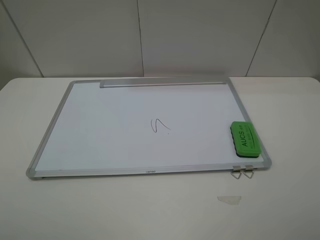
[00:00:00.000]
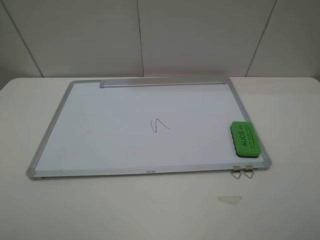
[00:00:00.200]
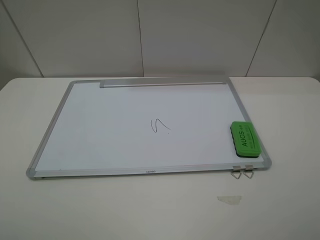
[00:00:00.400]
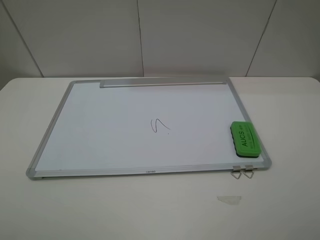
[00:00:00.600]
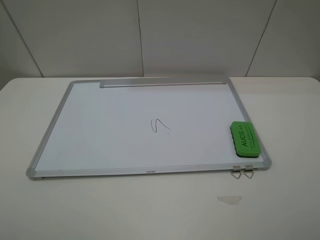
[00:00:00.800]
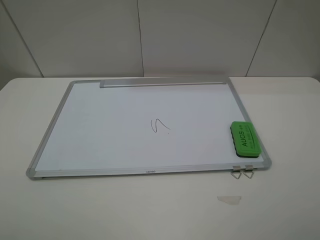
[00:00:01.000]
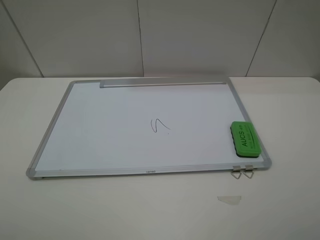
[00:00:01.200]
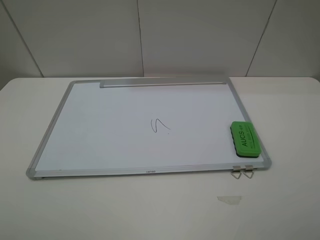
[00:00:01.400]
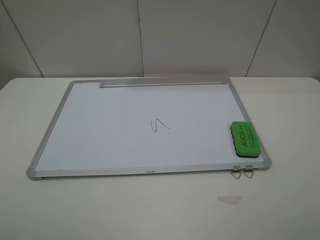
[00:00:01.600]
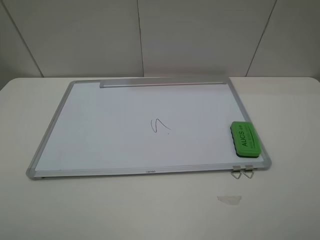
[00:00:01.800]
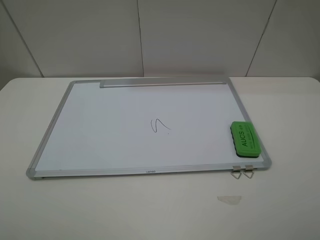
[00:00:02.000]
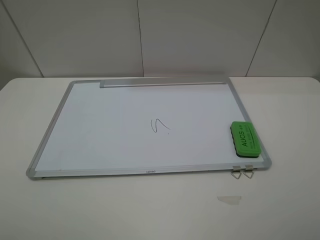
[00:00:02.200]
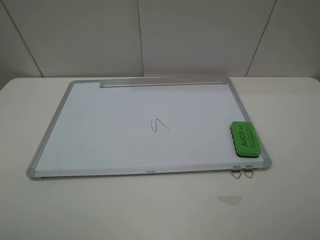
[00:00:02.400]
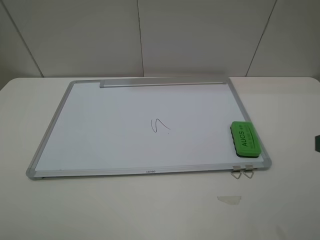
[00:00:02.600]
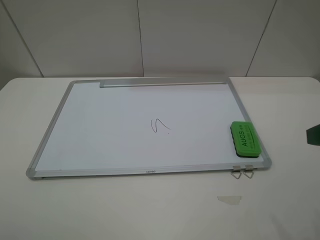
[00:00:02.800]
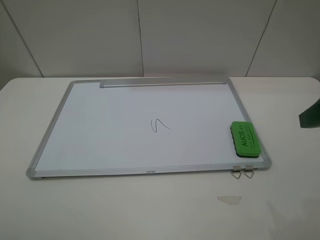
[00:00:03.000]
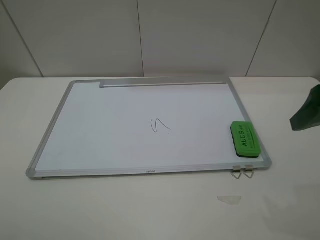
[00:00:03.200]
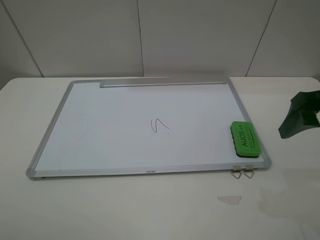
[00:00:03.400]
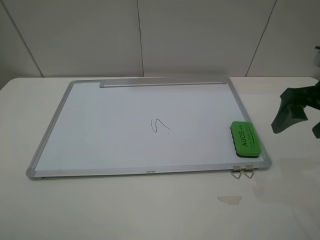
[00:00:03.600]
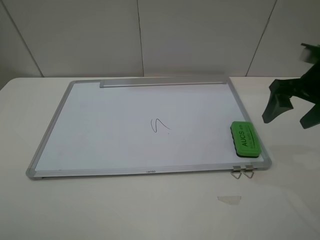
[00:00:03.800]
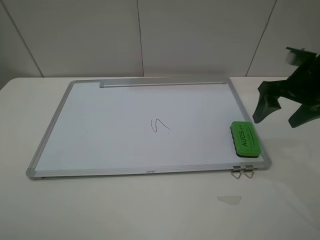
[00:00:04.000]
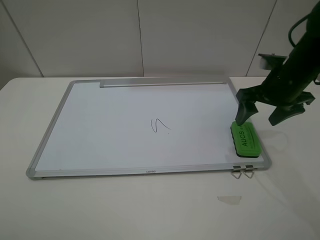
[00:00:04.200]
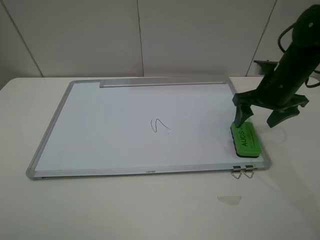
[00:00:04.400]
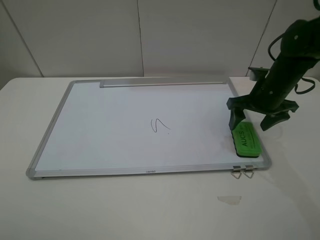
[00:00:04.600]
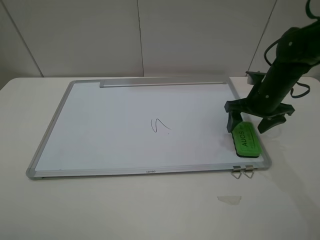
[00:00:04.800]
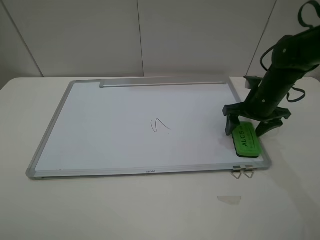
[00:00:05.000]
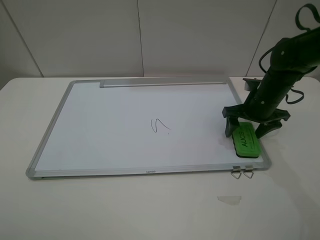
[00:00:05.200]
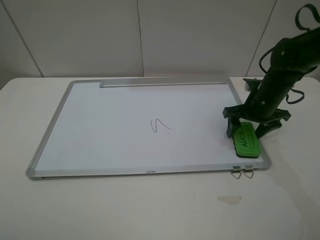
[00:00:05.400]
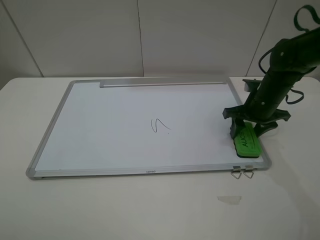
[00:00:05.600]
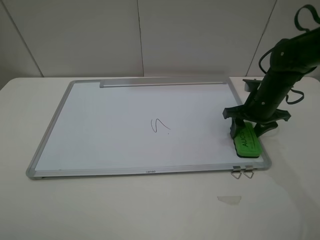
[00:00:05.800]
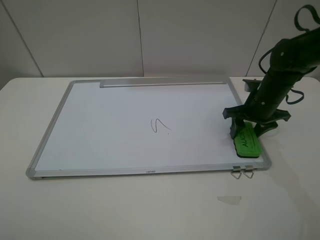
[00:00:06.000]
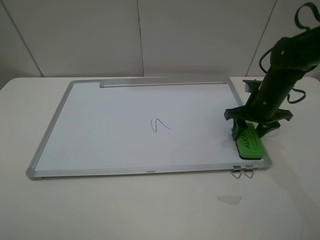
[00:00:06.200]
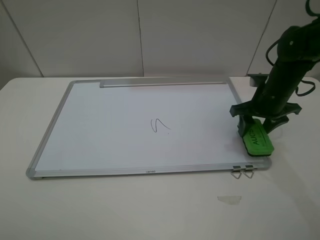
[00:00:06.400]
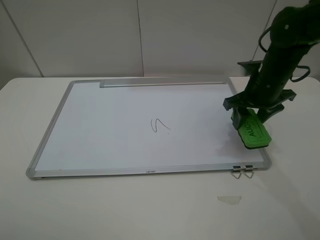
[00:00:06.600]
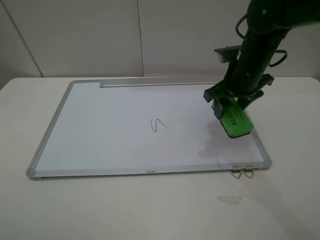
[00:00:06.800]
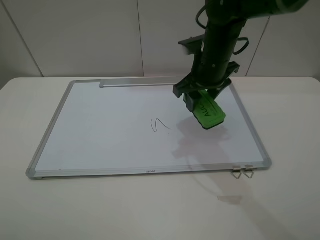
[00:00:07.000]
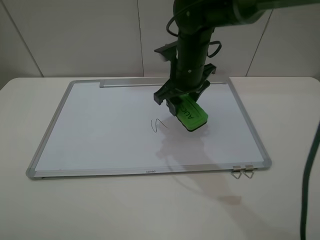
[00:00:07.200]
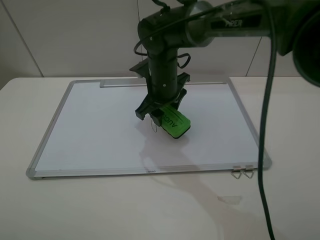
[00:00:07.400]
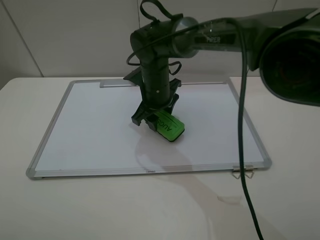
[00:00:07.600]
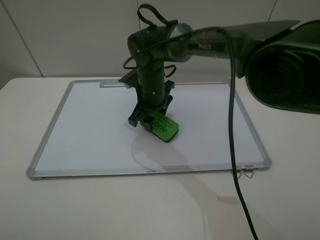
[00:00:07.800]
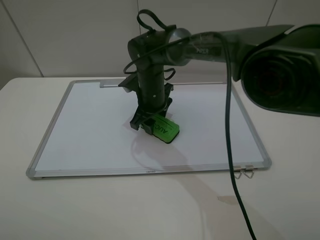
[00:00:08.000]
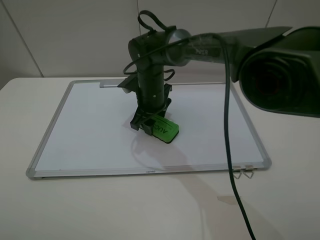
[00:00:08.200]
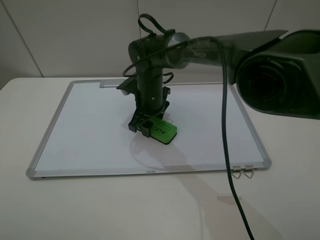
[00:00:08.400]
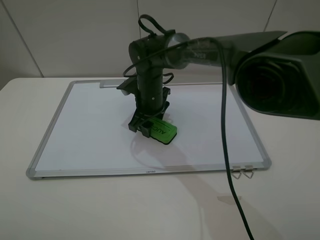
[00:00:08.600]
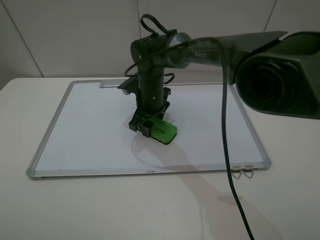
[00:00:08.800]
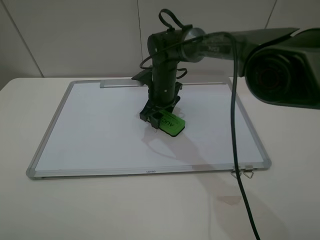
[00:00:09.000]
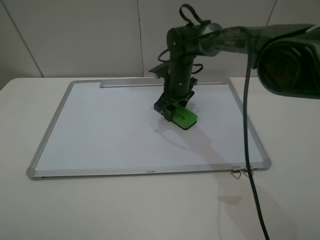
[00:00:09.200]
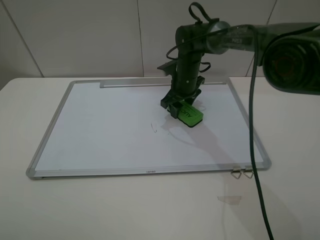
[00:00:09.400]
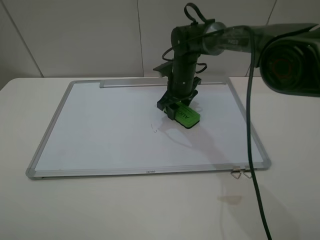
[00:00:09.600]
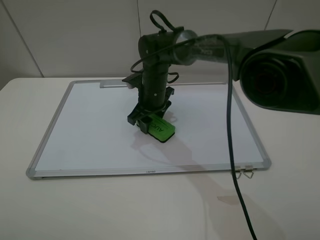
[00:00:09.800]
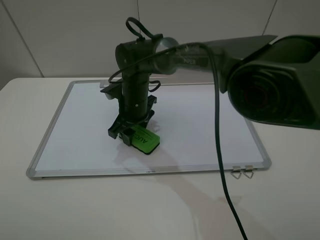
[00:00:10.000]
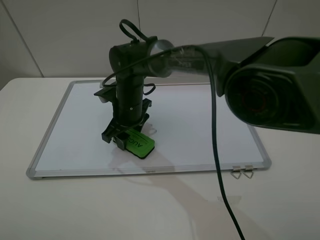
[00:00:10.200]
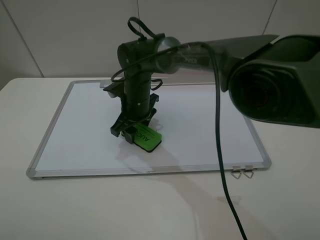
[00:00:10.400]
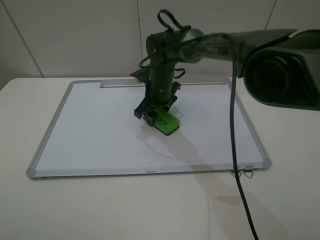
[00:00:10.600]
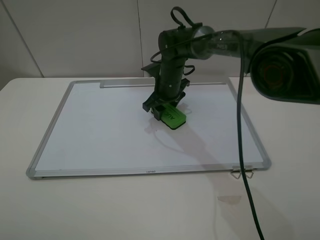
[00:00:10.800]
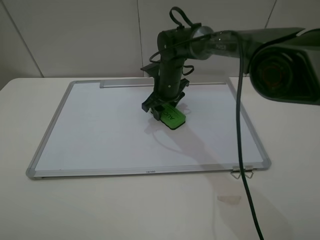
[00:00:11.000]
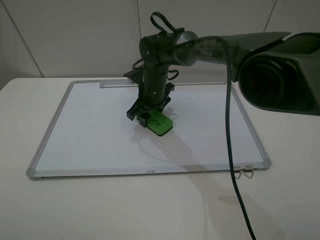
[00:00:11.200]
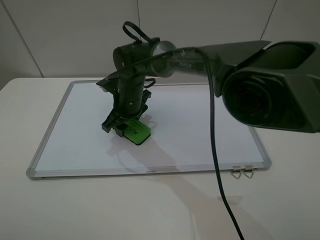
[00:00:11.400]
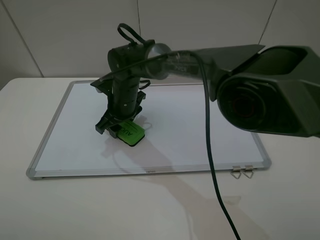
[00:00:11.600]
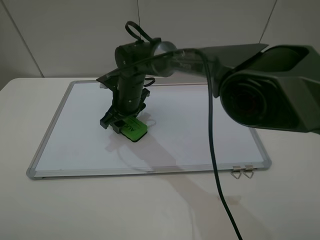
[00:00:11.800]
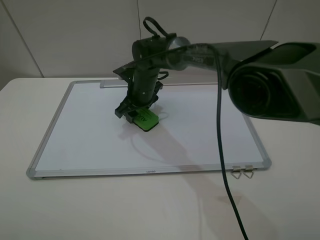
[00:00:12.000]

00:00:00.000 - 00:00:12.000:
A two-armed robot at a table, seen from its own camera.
Step, 00:00:00.000 - 00:00:05.800: Grasp the eraser with the right gripper.
00:00:00.000 - 00:00:01.600: Neither gripper changes place.
00:00:03.000 - 00:00:04.400: The right gripper shifts roughly 20 cm forward and downward.
00:00:04.400 - 00:00:06.000: The right gripper heads downward, covering about 5 cm, and closes its fingers.
00:00:06.000 - 00:00:07.600: The right gripper travels to the left by roughly 25 cm.
00:00:07.600 - 00:00:09.000: The right gripper shifts by about 5 cm.
00:00:09.000 - 00:00:10.400: The right gripper heads to the left, covering approximately 5 cm.
00:00:10.400 - 00:00:12.000: The right gripper goes left and right, roughly 10 cm each way, reversing 2 times.

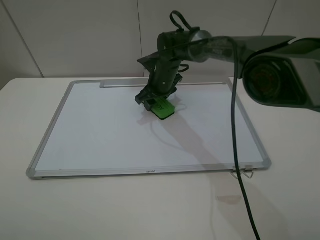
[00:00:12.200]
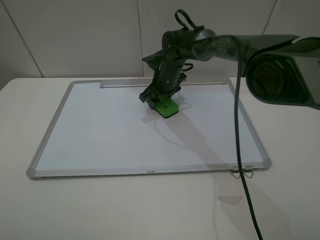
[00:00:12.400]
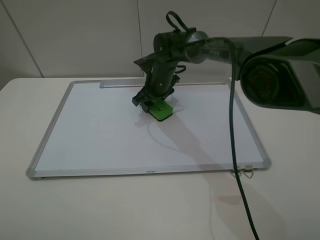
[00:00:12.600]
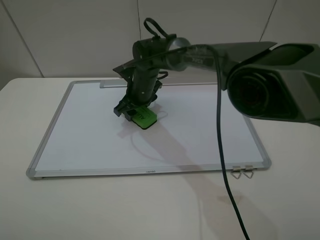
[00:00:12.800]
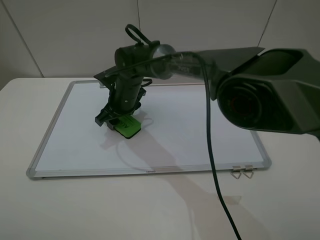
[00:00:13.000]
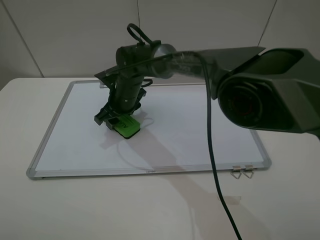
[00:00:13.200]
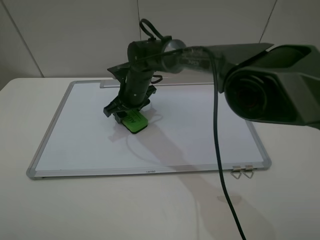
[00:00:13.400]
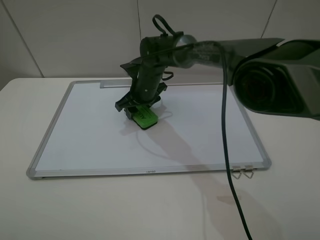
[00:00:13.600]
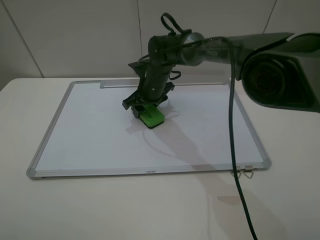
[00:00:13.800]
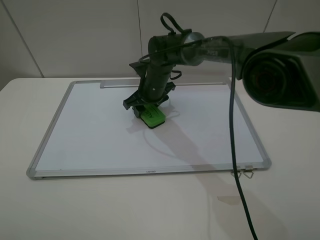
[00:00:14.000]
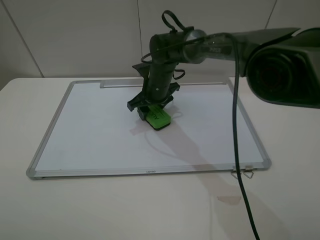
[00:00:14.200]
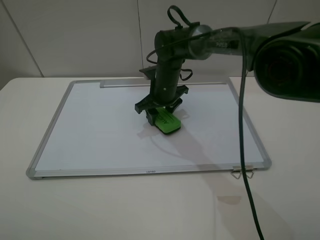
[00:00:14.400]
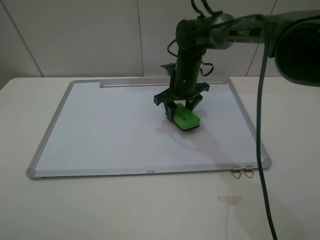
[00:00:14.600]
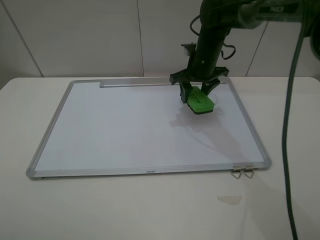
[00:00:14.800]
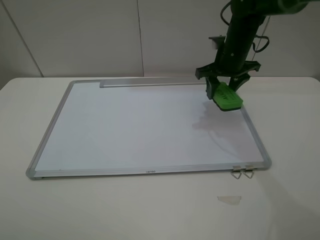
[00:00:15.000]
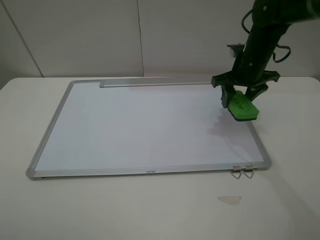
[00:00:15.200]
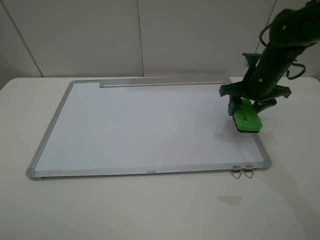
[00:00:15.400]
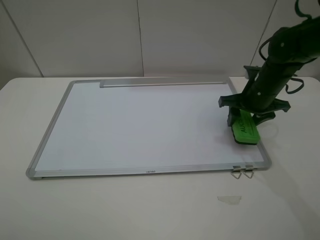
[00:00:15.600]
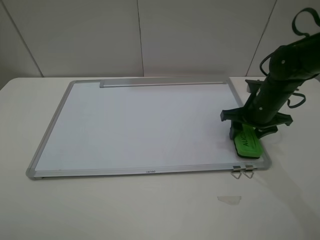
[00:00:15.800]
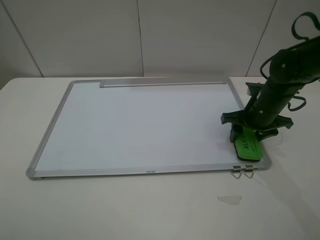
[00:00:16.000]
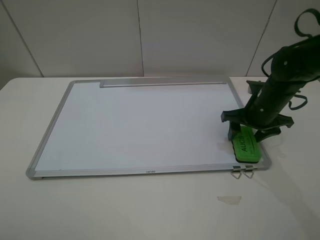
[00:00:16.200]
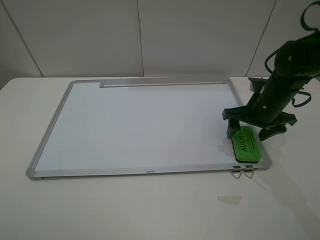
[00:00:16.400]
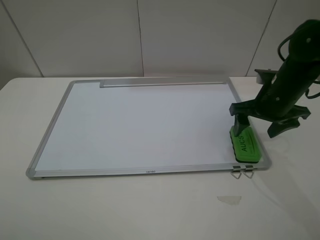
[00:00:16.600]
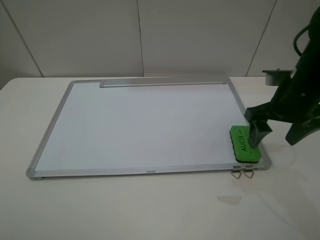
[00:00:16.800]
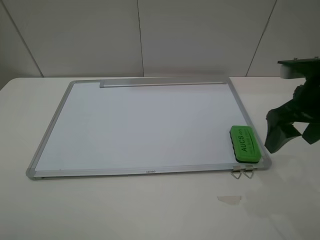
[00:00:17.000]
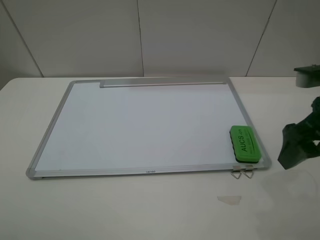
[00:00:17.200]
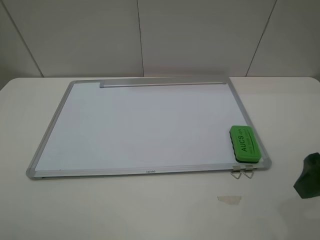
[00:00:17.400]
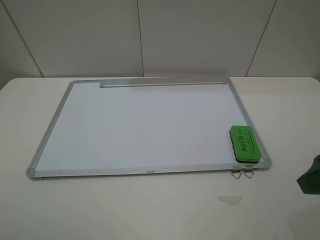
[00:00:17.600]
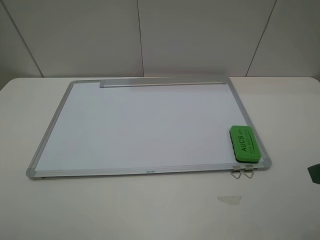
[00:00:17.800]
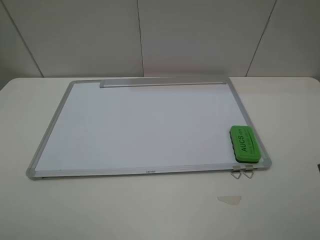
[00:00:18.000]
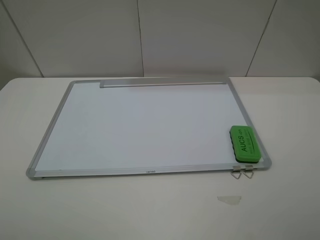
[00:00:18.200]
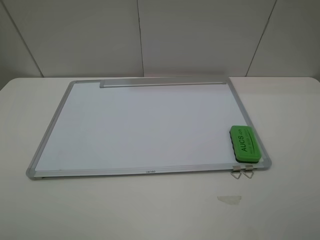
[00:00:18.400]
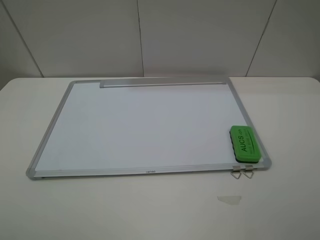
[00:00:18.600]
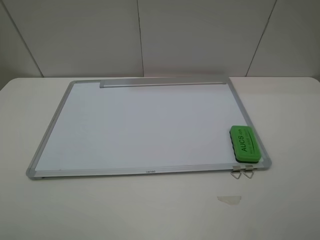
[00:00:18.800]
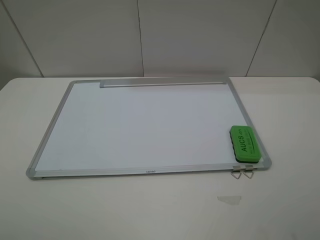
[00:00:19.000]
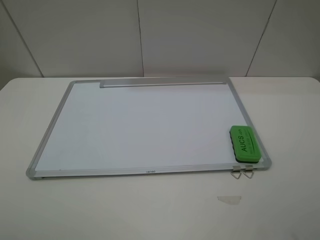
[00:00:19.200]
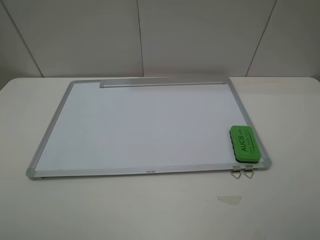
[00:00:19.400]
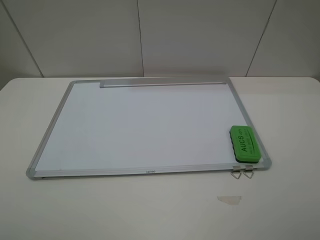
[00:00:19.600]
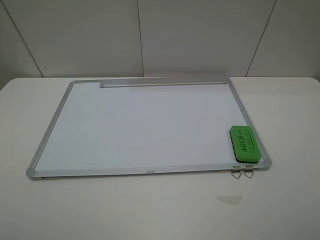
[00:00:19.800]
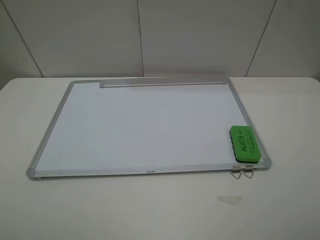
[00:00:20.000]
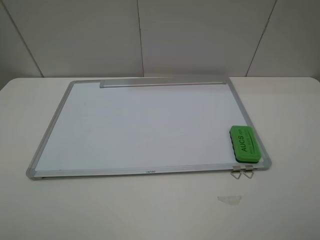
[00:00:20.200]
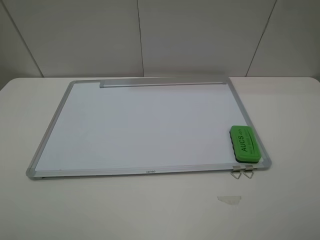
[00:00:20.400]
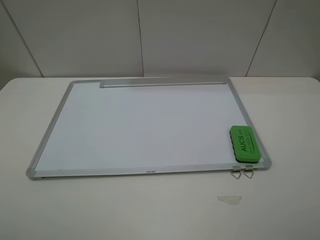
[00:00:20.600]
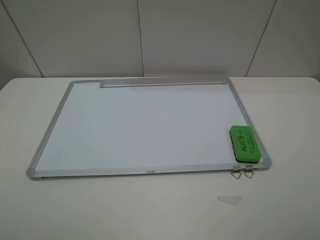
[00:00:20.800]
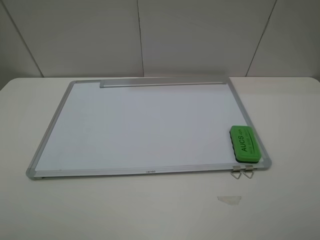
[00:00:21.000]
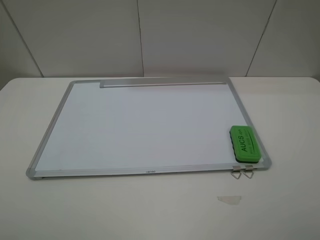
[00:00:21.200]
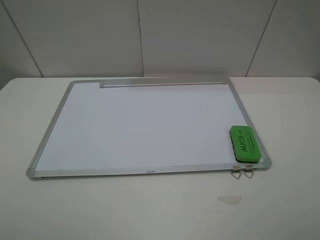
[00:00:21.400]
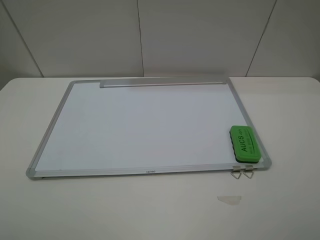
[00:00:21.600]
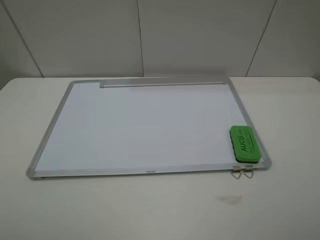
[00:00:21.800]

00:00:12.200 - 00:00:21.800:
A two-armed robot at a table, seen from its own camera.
Step, 00:00:12.200 - 00:00:14.200: Grasp the eraser and wipe the blackboard with the right gripper.
Step, 00:00:14.400 - 00:00:16.600: Place the eraser with the right gripper.
00:00:12.200 - 00:00:13.800: The right gripper reaches about 10 cm to the left, then returns.
00:00:13.800 - 00:00:15.400: The right gripper goes about 25 cm to the right.
00:00:15.400 - 00:00:17.000: The right gripper travels backward and upward by approximately 15 cm, and opens its fingers.
00:00:17.000 - 00:00:18.600: The right gripper travels backward by about 15 cm.
00:00:20.200 - 00:00:21.800: The two grippers keep their place.
